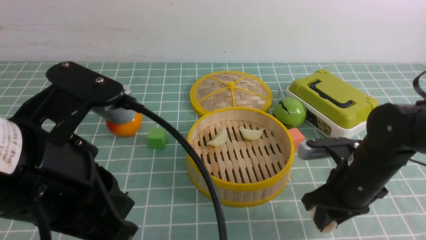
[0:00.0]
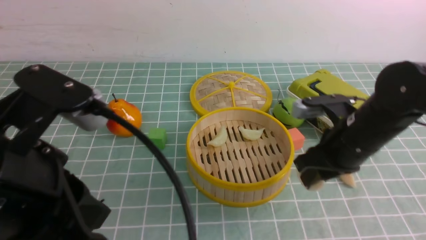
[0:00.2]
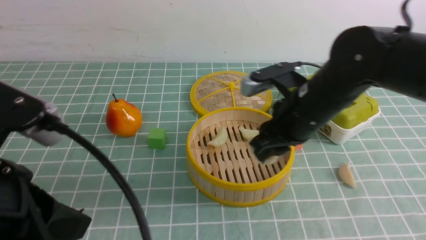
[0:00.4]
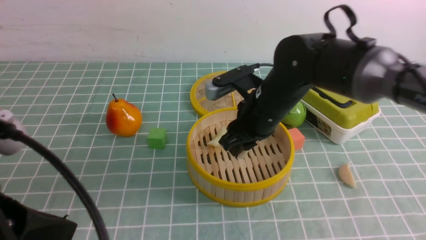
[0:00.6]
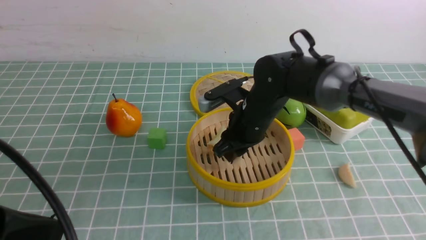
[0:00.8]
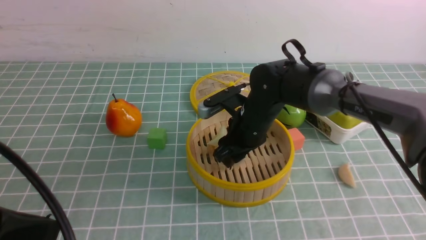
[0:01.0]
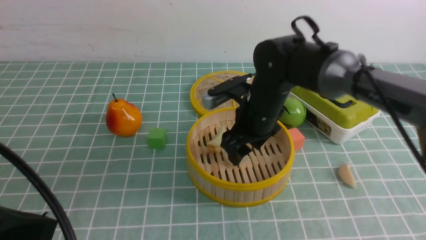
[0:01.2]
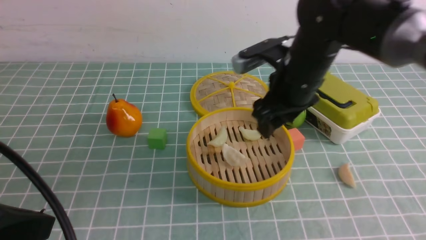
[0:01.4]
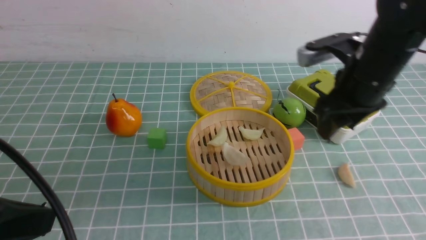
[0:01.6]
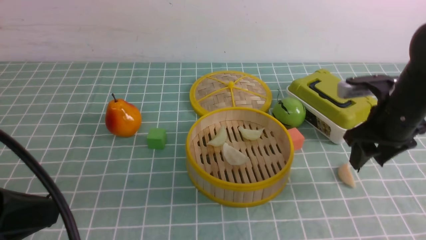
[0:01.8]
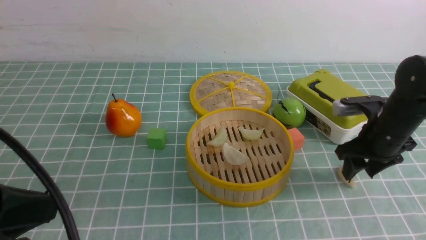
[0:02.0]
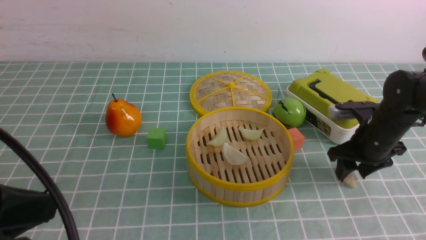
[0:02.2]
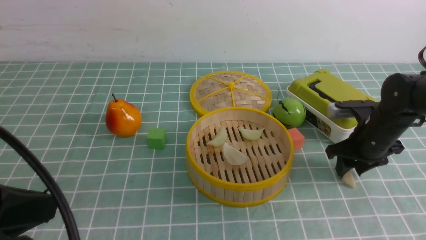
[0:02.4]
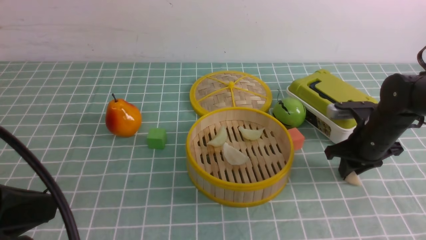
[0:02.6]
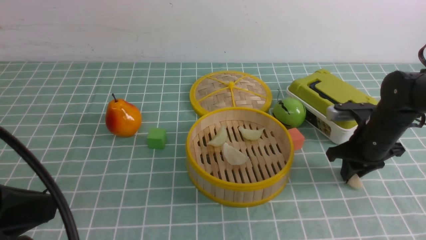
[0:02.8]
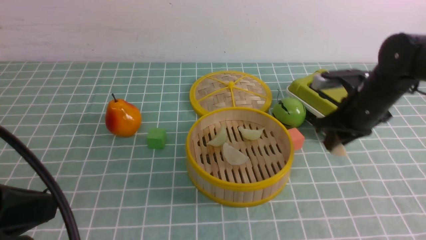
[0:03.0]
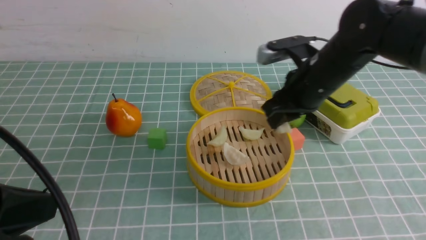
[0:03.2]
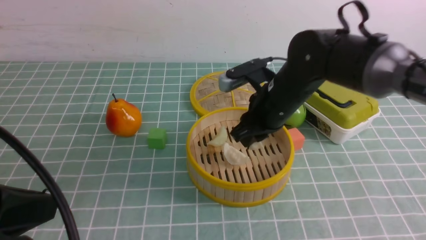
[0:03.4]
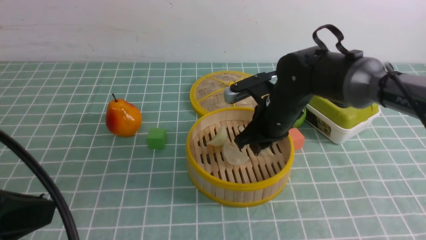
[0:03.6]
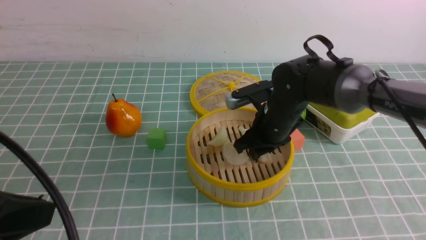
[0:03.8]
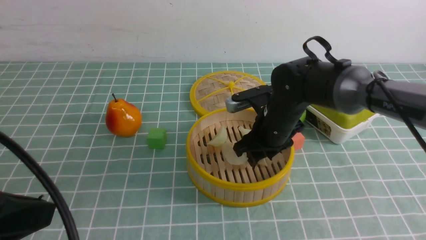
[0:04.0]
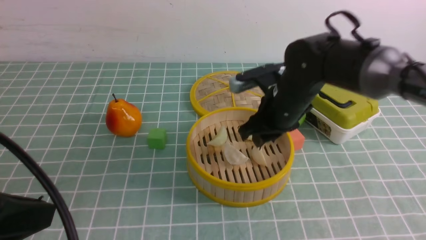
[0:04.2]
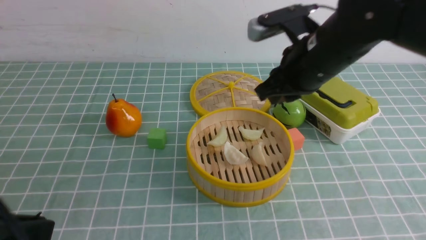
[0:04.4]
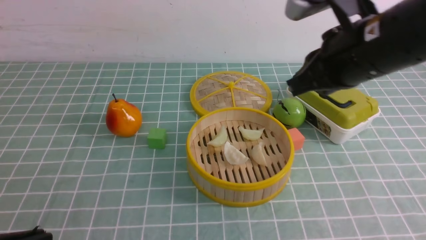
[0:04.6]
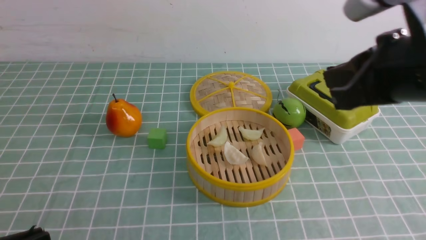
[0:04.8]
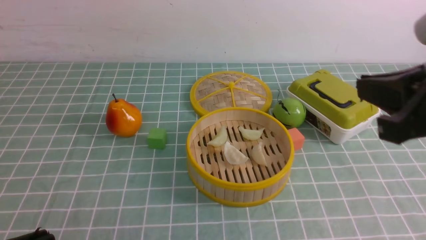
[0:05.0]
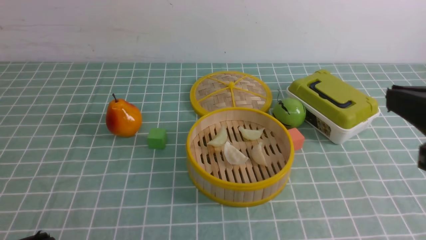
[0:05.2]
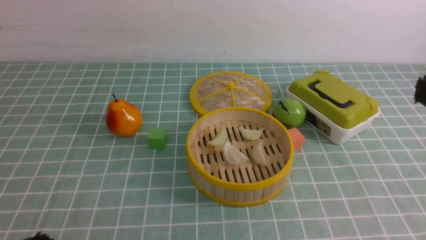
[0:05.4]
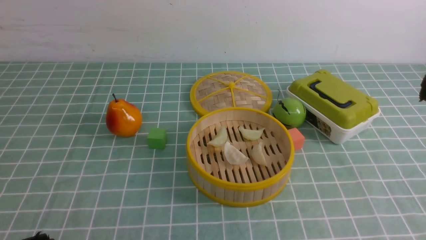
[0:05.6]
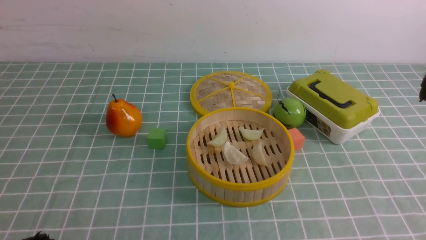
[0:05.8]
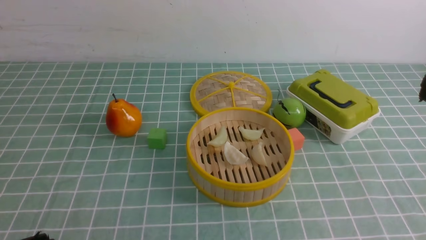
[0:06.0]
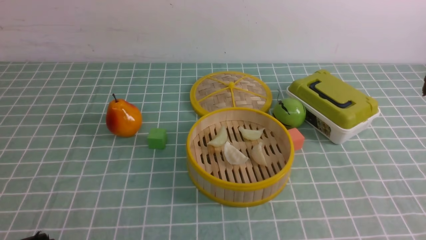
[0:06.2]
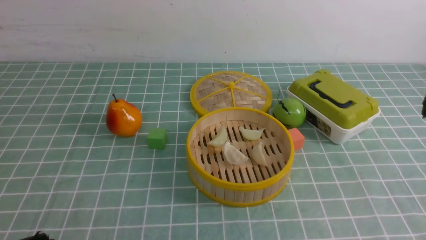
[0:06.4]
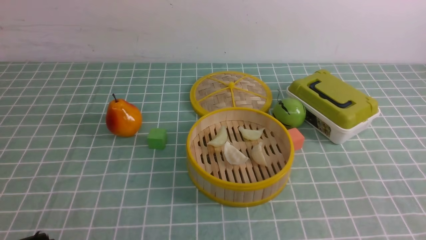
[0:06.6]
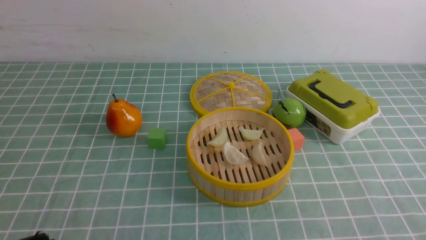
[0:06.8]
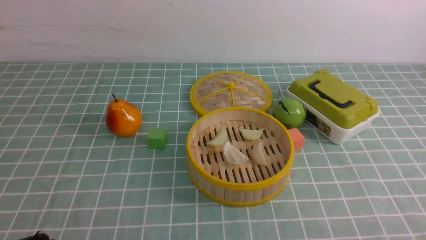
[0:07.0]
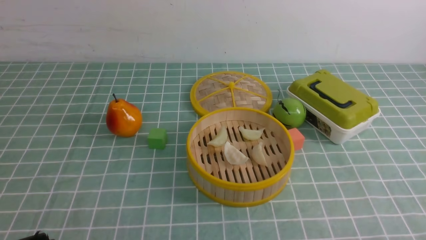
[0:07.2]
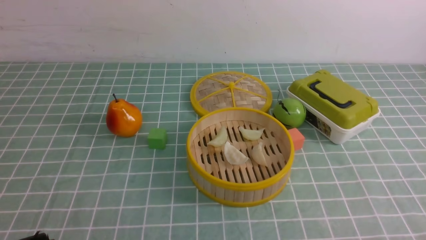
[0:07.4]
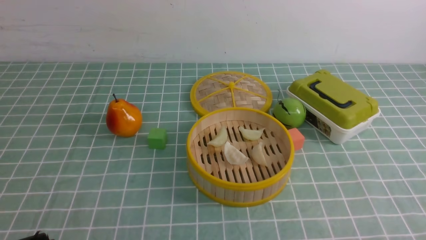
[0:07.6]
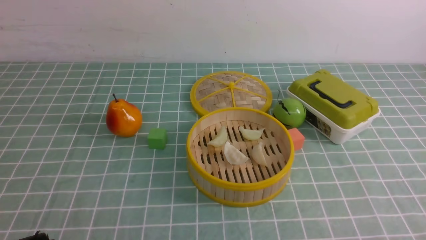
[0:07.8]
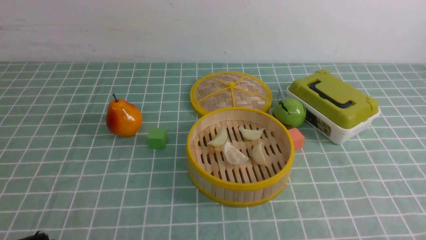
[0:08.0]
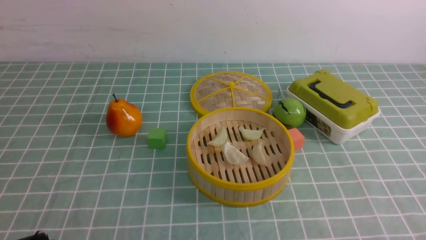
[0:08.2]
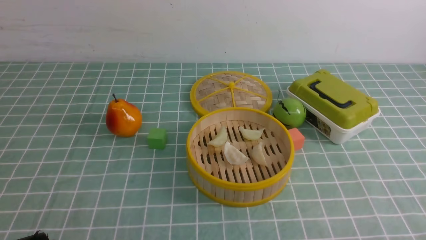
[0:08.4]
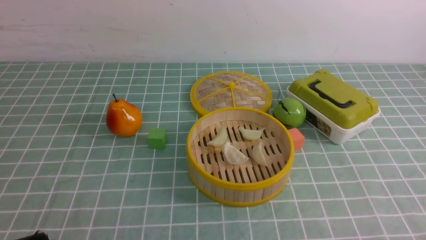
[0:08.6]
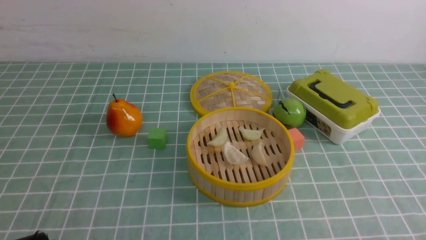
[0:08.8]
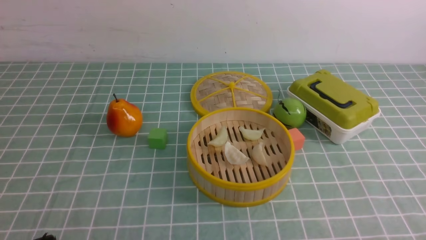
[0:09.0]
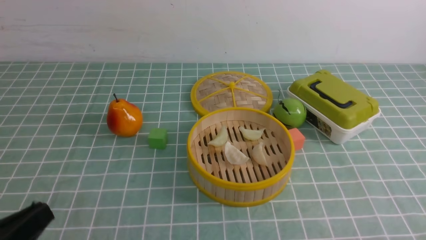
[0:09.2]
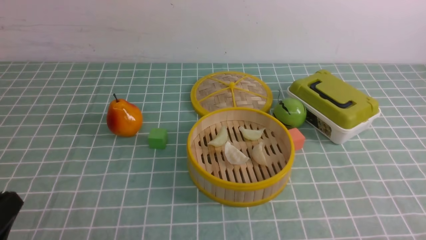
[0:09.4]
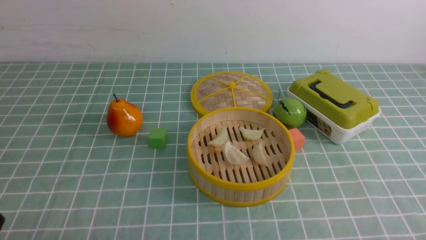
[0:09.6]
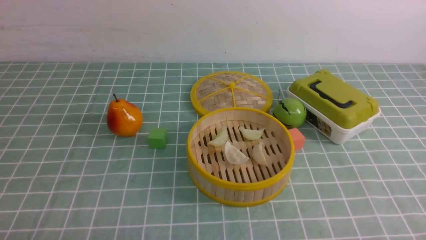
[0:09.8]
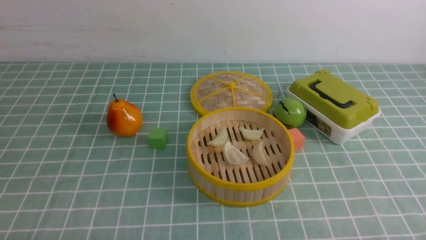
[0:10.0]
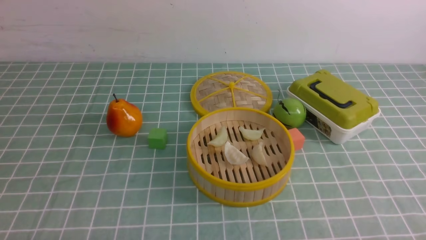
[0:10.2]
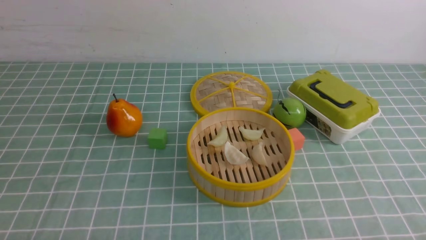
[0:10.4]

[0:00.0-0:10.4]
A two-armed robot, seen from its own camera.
Task of the whole recording: put the dumplings into the steamer on the table with the blue tablecloth.
Step, 0:00.0 to 0:01.2: use the right arm to put the dumpling into the steamer.
Step, 0:01.4 to 0:02.6: use the right arm to grab a dumpling.
Step, 0:02.8 to 0:04.0: use the right arm to put the dumpling into the steamer.
0:00.0 to 0:01.4: The left gripper heads to the left and backward, covering some 10 cm; the right gripper moves forward, upward and to the left, some 15 cm, and opens.
0:01.4 to 0:03.0: The right gripper heads to the right and downward, covering some 15 cm, and closes up.
0:03.0 to 0:04.4: The right gripper shifts roughly 15 cm to the left and upward.
0:04.4 to 0:06.0: The left gripper shifts some 5 cm downward. Meanwhile the right gripper heads backward and to the right, covering approximately 25 cm.
0:07.4 to 0:09.0: Both grippers stay about where they are.

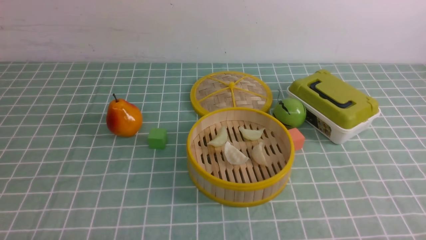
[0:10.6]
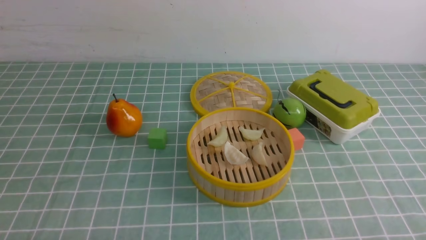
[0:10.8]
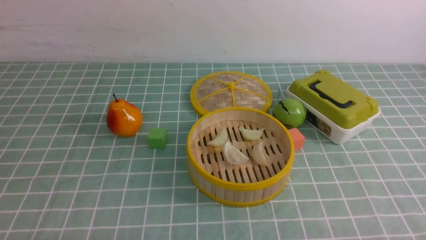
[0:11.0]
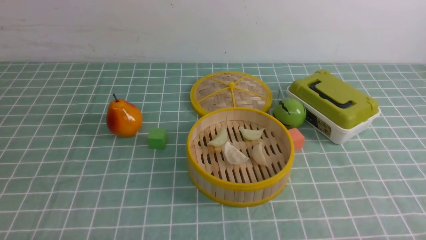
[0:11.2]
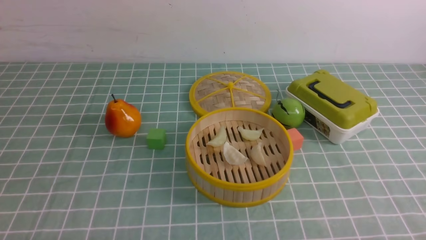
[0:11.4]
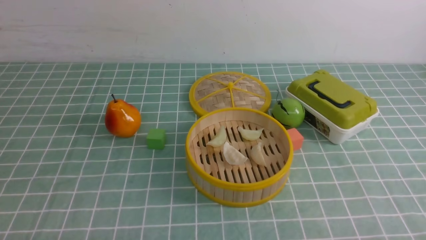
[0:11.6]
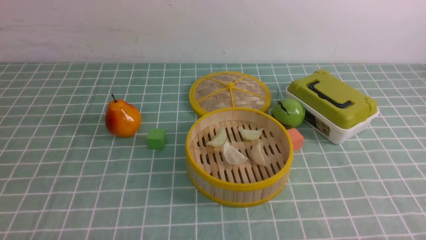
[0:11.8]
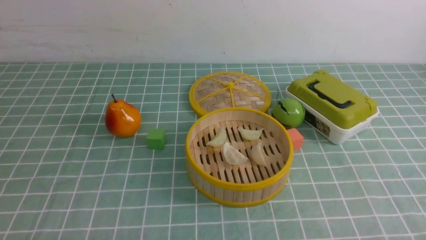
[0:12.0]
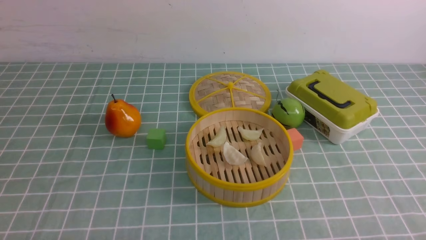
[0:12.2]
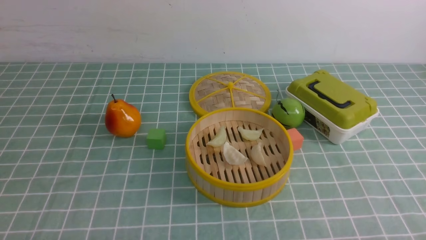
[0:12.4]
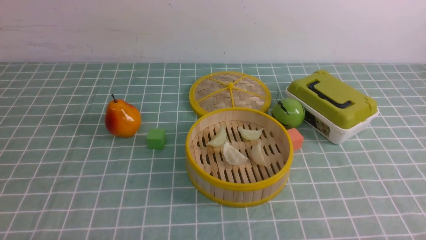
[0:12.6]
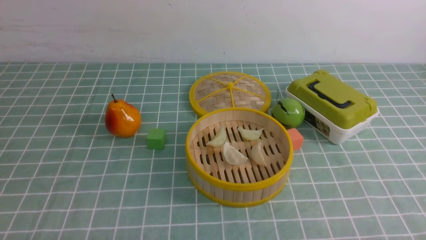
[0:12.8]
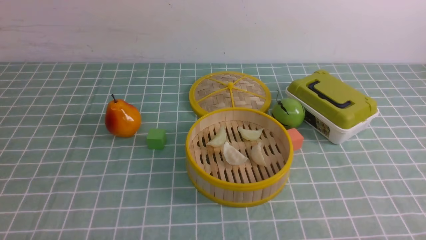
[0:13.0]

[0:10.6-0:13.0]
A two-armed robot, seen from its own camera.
Task of the whole recording: put the dumplings into the steamer on the table with the blue tablecloth.
0:10.6 to 0:13.0: Neither gripper changes place.

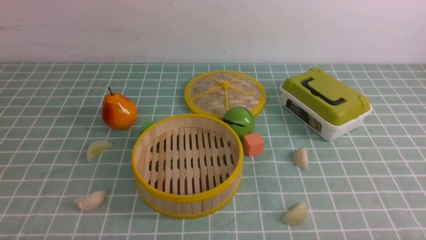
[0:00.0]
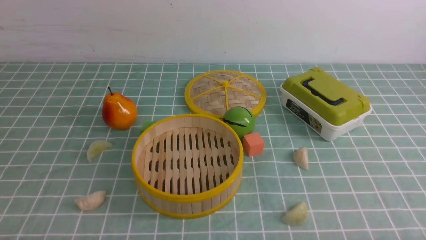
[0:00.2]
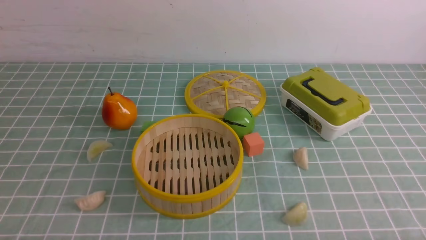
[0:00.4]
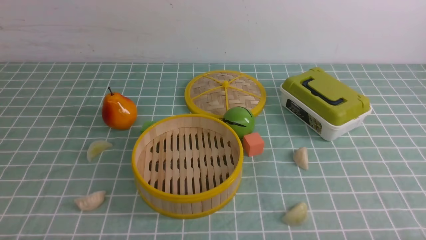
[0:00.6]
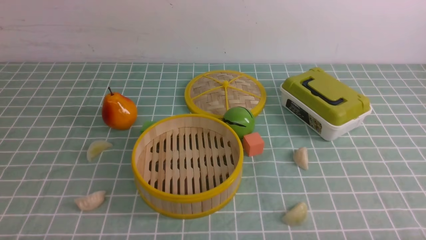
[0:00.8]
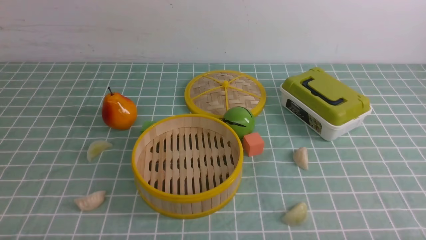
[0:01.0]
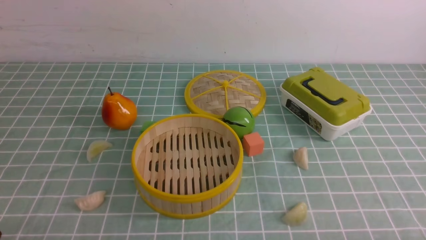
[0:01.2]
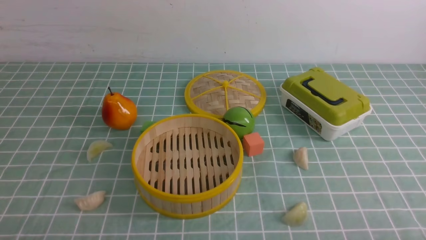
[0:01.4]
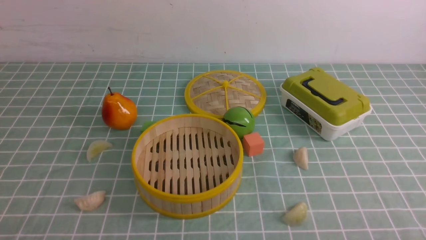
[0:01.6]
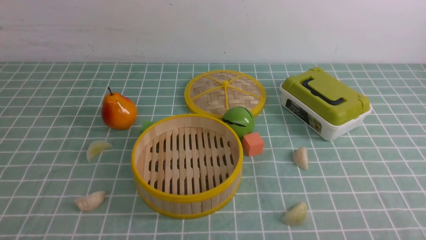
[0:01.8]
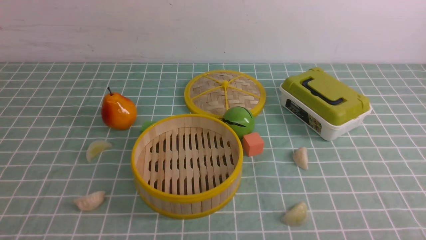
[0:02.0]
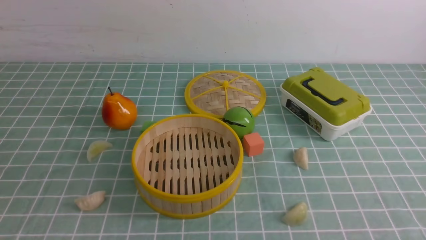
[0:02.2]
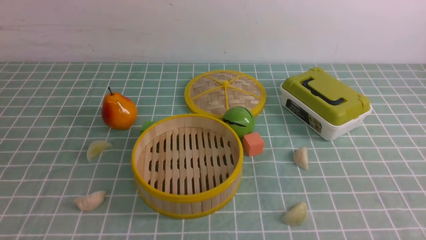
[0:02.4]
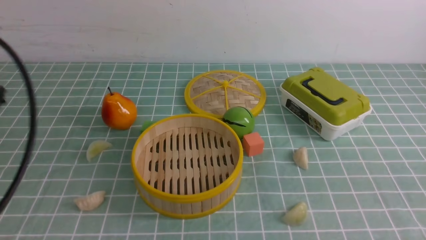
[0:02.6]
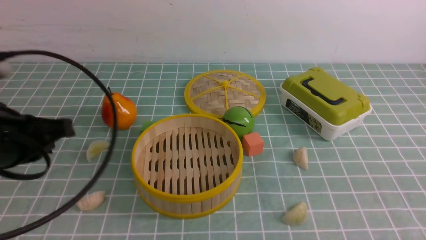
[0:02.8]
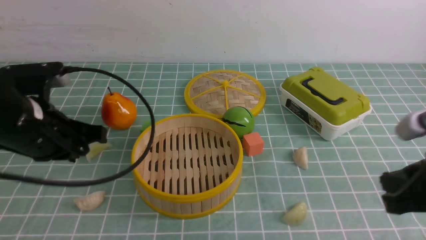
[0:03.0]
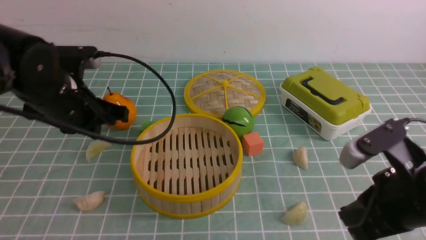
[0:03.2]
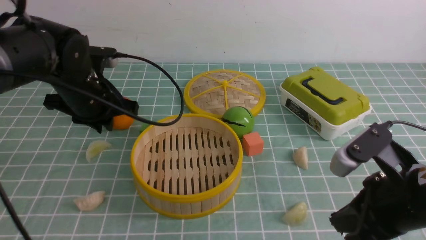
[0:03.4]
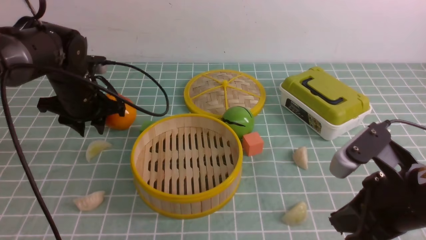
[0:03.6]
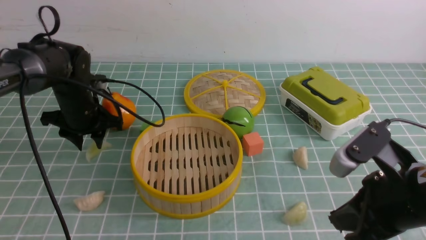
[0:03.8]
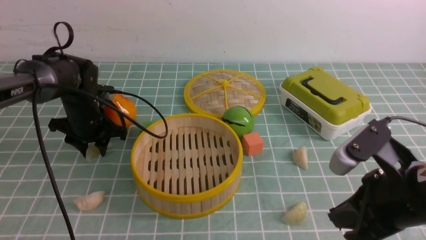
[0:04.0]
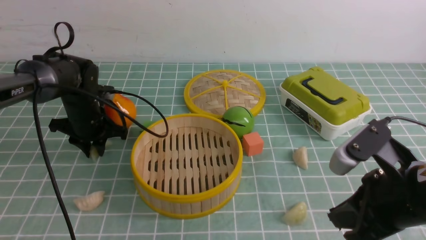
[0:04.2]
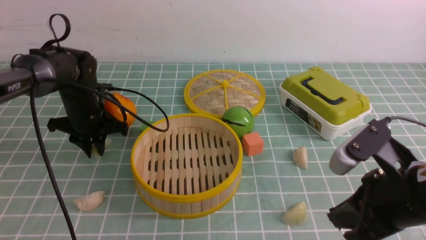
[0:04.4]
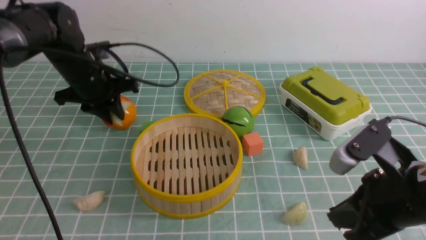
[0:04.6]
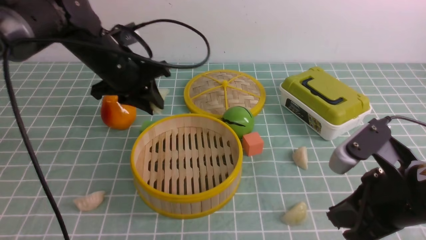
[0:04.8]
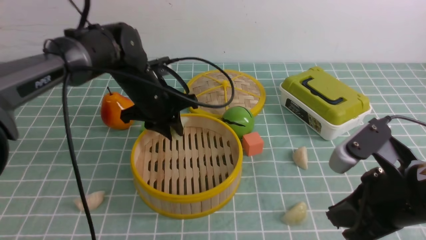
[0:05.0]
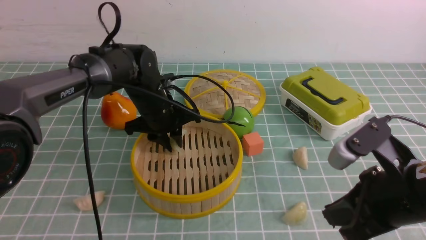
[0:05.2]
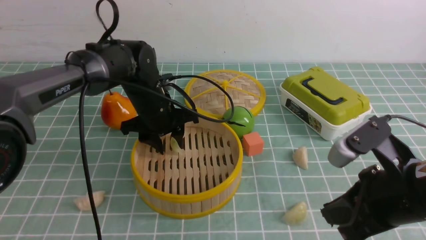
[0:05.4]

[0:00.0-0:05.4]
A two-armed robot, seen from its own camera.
Task of the whole recording: put the dumplings into the steamer on the table with the blue tablecloth.
Step, 0:00.0 to 0:04.6: use the left arm to grab a dumpling.
0:01.4 to 0:02.8: The left gripper is displaced forward and upward by roughly 20 cm, and closes up.
0:02.8 to 0:04.0: The left gripper travels forward and downward by some 25 cm, and opens. Meanwhile the right gripper travels to the left by approximately 10 cm.
0:04.0 to 0:05.4: The left gripper heads to the right and upward, covering about 15 cm.
